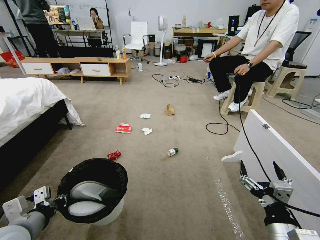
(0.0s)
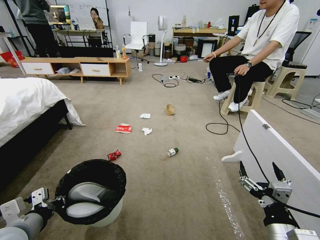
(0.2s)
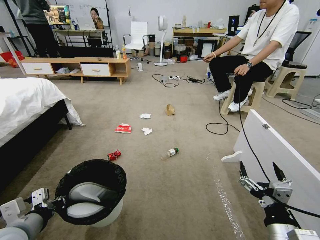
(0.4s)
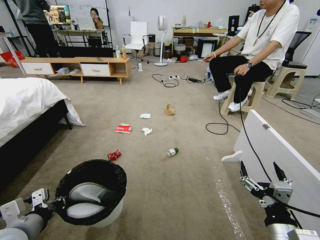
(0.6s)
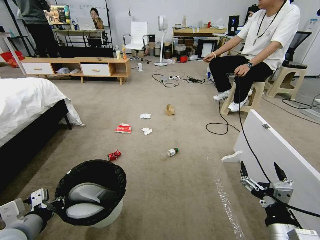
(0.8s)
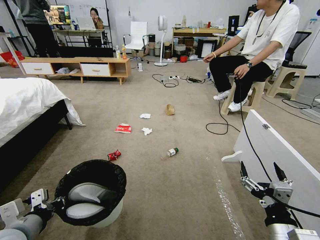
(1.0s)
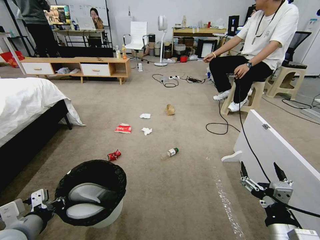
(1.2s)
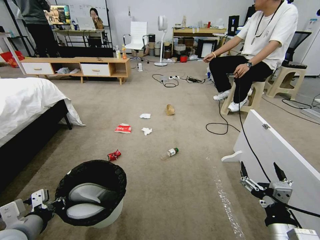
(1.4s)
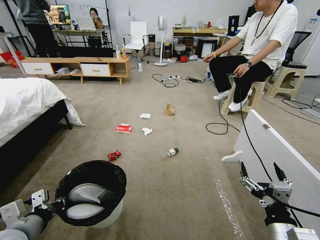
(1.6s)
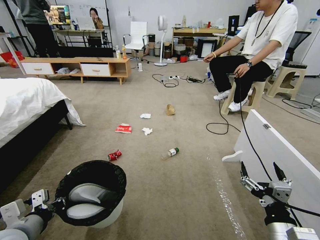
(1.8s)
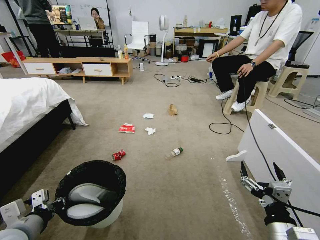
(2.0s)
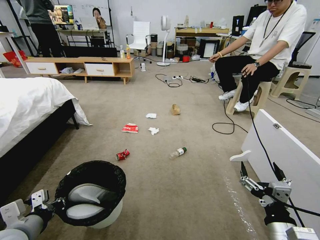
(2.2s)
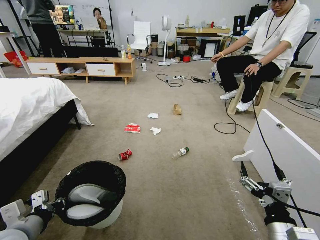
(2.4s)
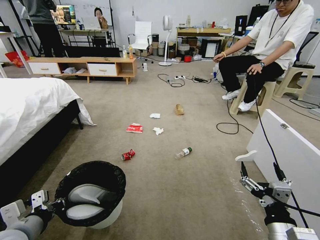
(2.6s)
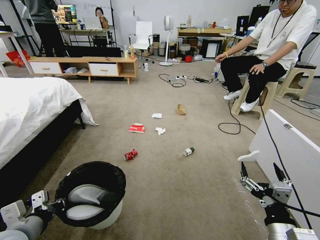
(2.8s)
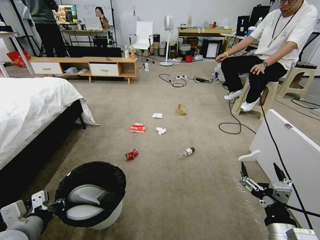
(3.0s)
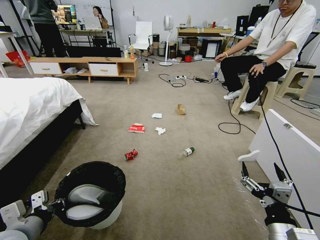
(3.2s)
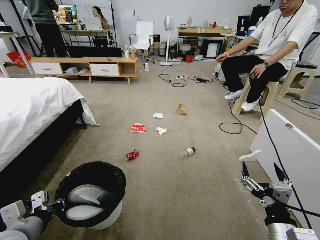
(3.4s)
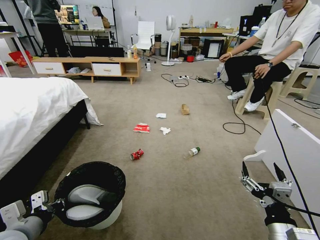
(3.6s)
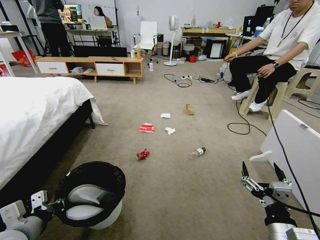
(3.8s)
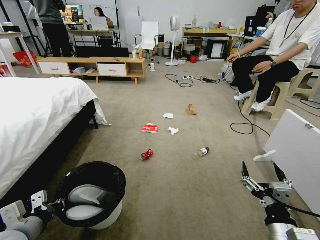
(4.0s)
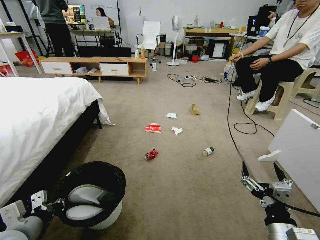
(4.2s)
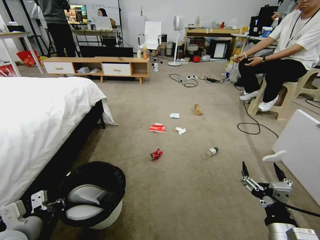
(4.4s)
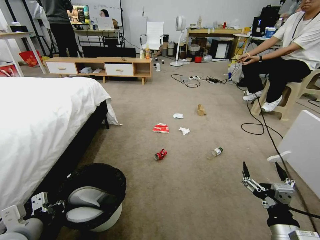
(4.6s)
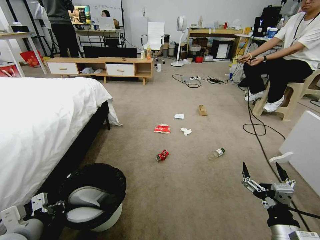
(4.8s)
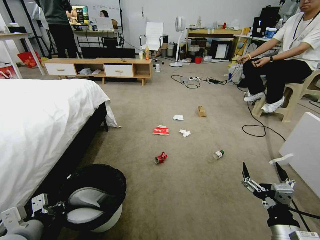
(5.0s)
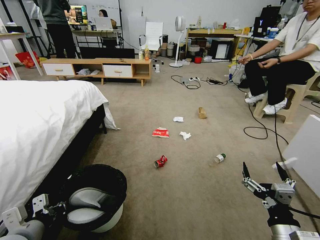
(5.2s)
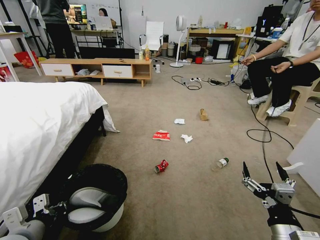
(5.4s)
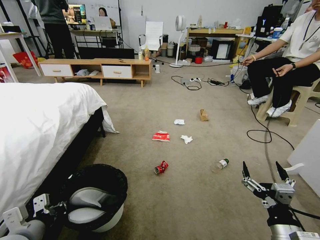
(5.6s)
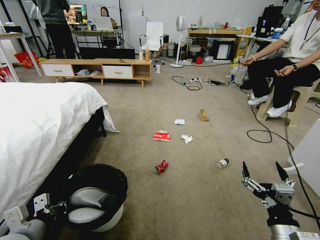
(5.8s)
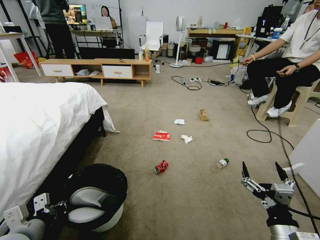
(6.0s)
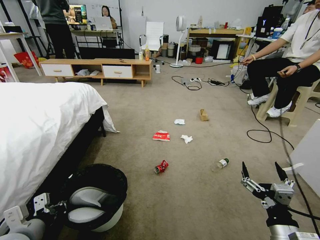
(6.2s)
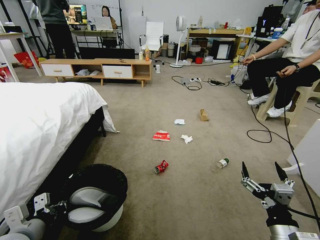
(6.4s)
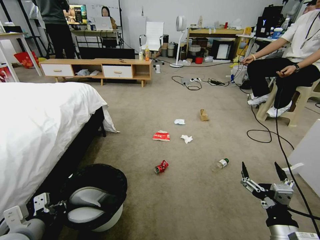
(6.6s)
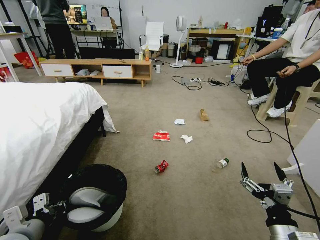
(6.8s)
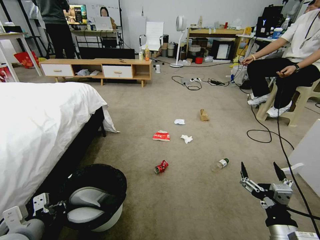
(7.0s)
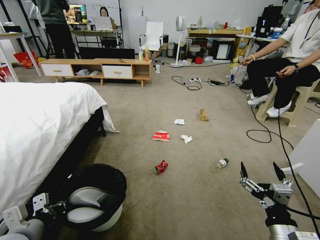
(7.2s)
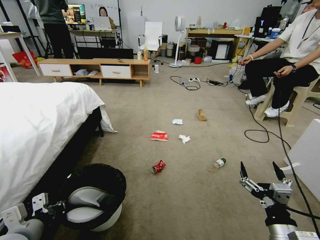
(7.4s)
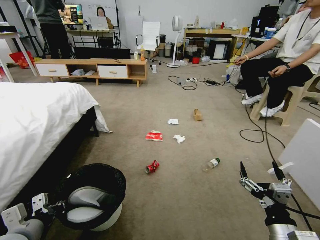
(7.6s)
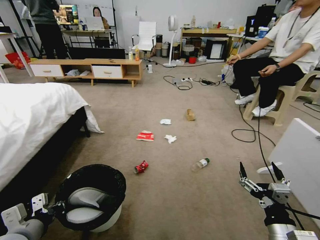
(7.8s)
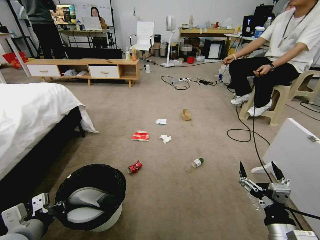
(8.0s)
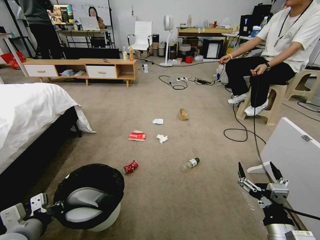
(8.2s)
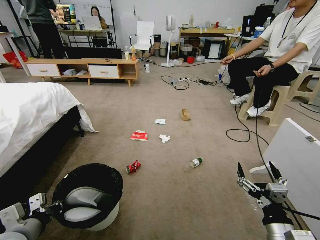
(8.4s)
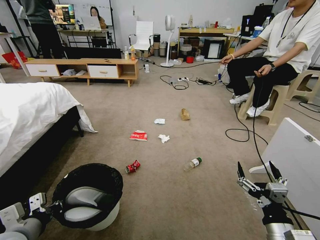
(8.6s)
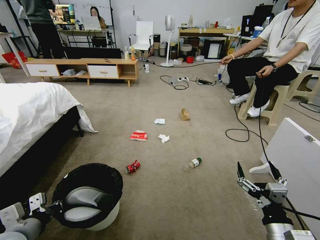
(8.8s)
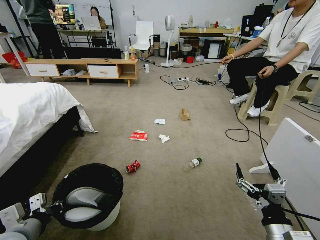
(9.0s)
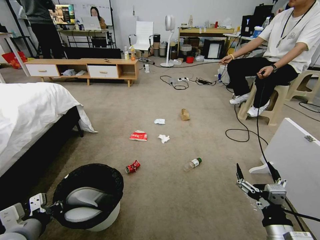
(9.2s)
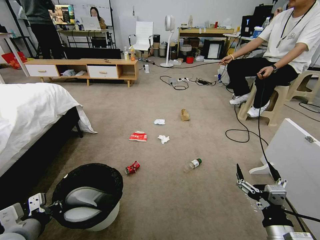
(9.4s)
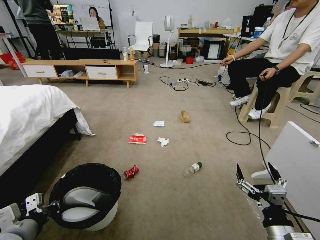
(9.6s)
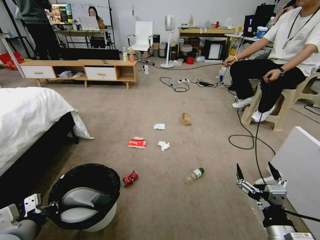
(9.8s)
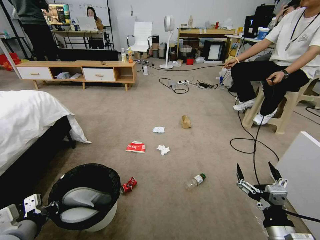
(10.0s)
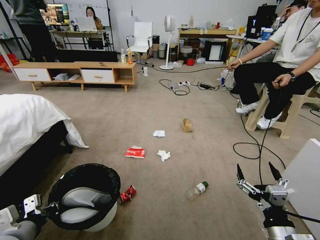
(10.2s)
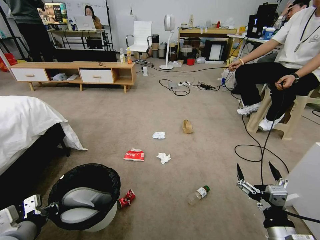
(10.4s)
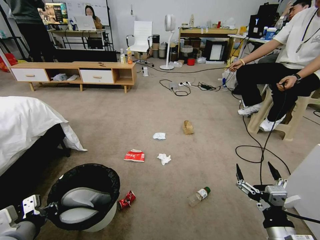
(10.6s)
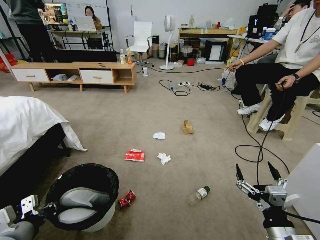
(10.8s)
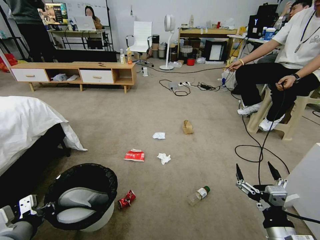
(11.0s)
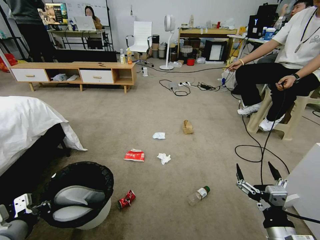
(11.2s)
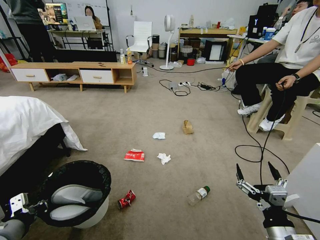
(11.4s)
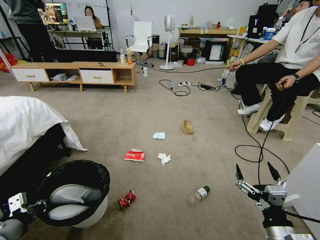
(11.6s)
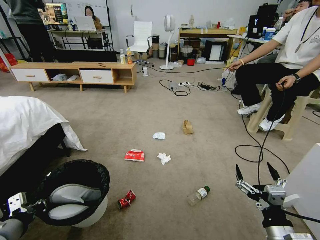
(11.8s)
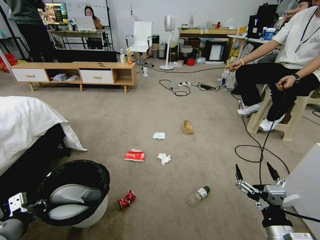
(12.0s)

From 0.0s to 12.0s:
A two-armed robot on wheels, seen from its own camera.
Task of the whole recording: Pick up the trash bin and place the garbage on the floor into it.
From 10.4s to 12.0s: The grippers move only a little.

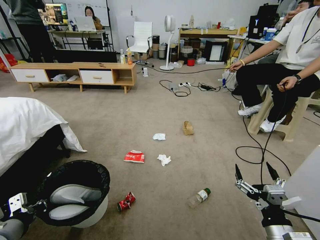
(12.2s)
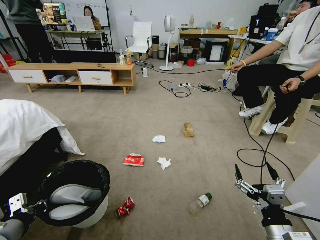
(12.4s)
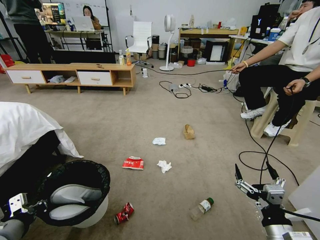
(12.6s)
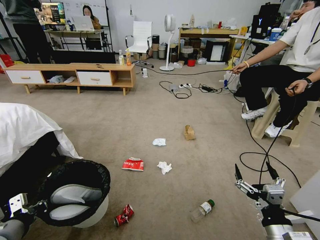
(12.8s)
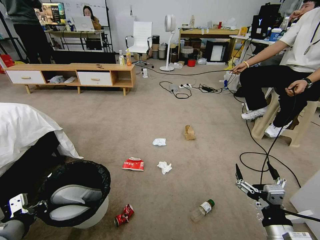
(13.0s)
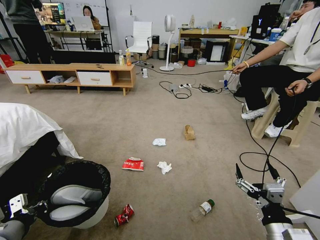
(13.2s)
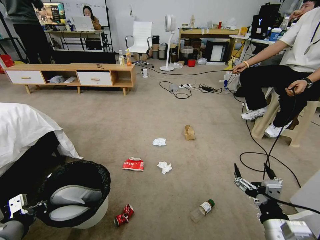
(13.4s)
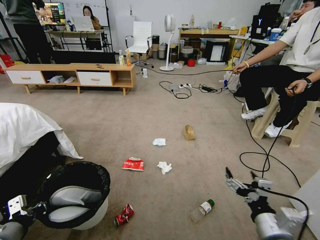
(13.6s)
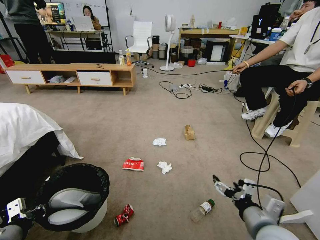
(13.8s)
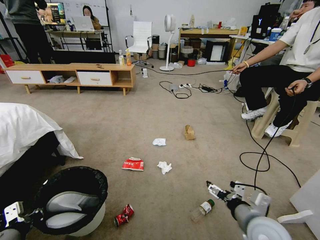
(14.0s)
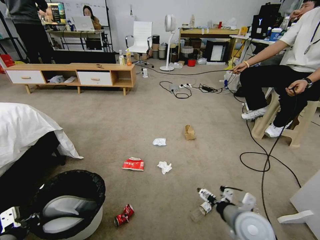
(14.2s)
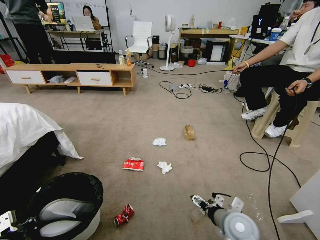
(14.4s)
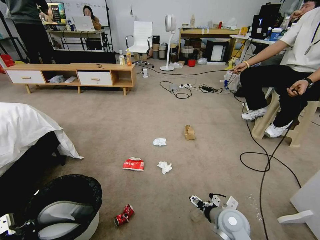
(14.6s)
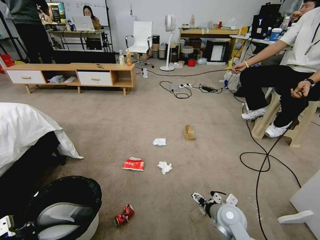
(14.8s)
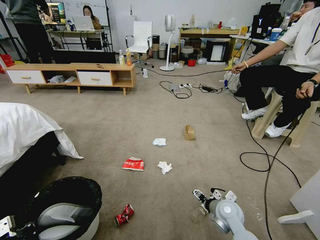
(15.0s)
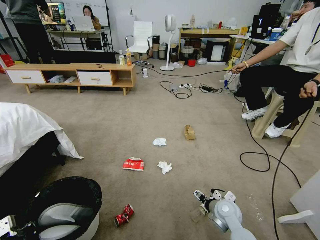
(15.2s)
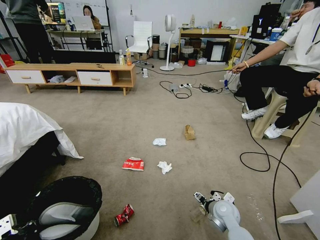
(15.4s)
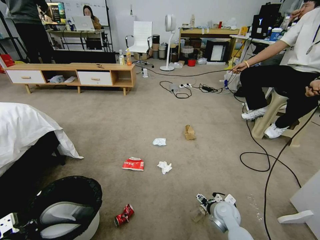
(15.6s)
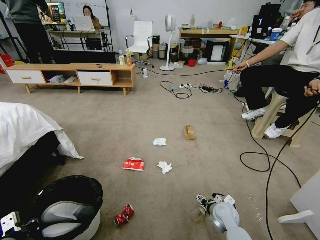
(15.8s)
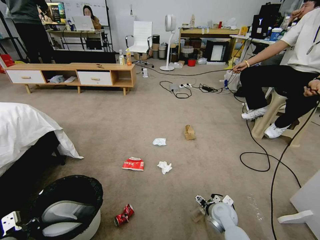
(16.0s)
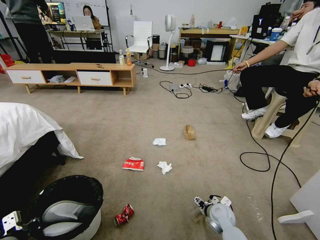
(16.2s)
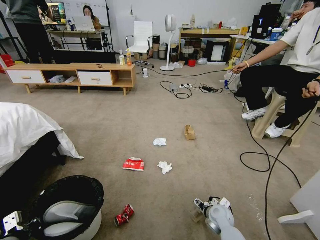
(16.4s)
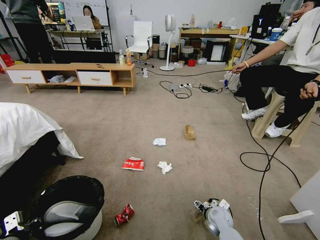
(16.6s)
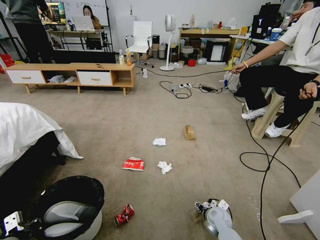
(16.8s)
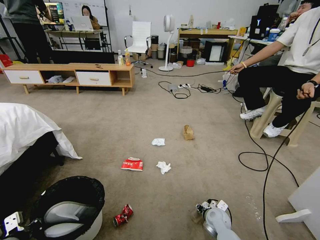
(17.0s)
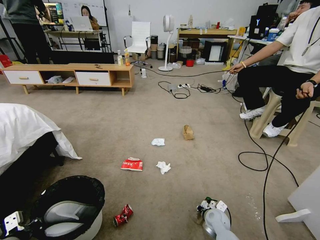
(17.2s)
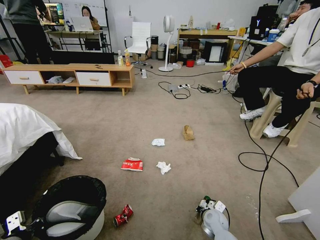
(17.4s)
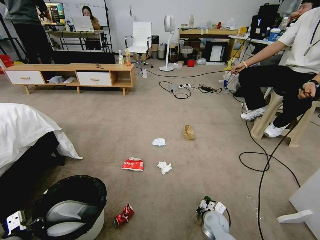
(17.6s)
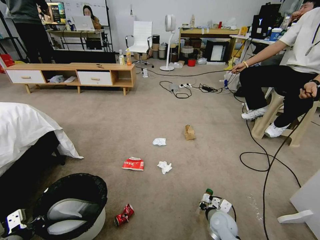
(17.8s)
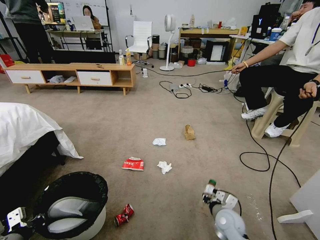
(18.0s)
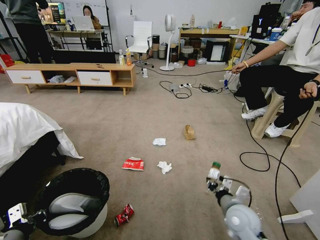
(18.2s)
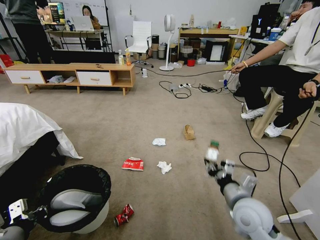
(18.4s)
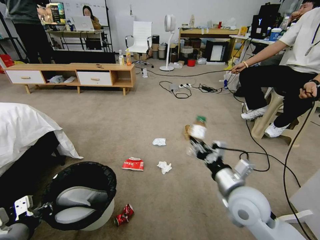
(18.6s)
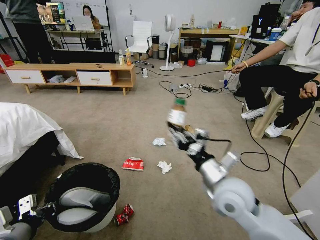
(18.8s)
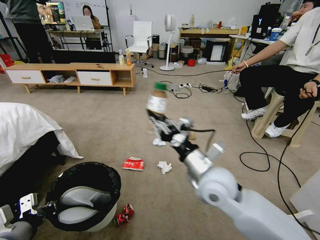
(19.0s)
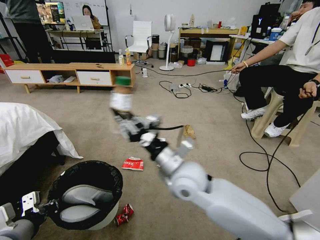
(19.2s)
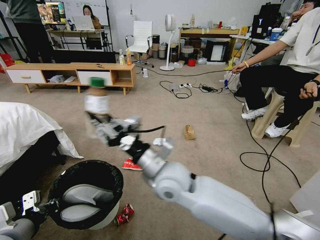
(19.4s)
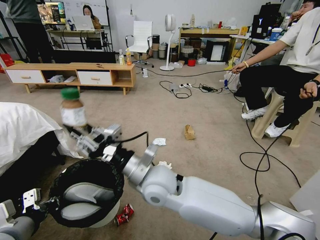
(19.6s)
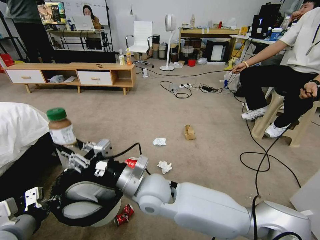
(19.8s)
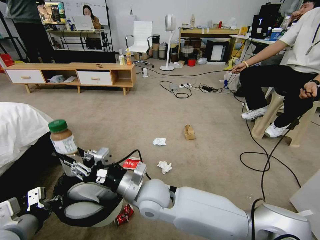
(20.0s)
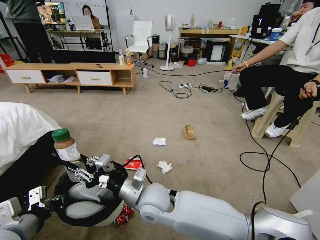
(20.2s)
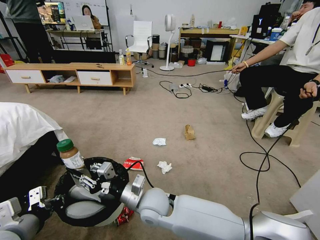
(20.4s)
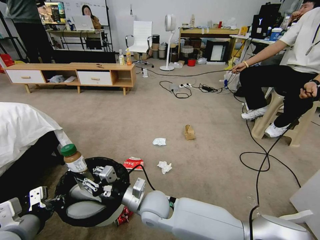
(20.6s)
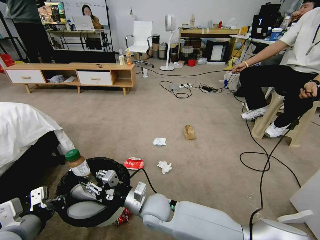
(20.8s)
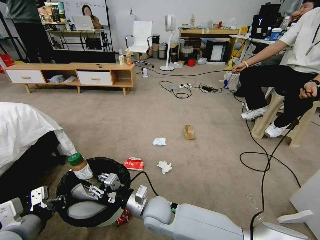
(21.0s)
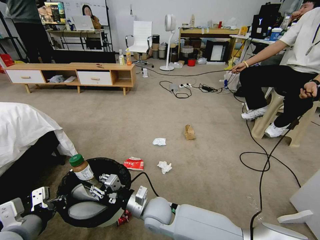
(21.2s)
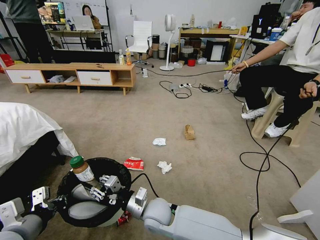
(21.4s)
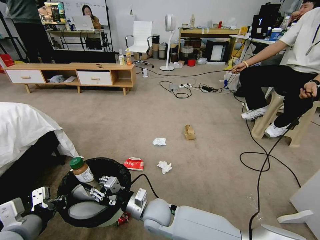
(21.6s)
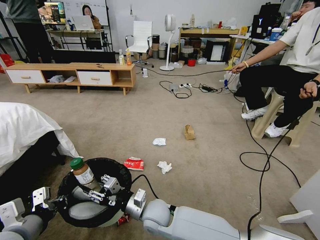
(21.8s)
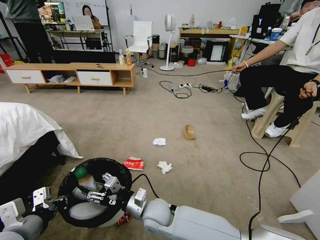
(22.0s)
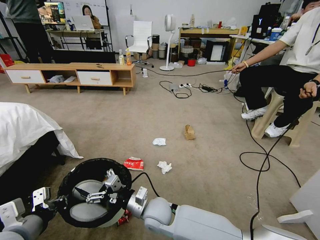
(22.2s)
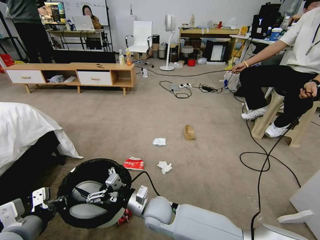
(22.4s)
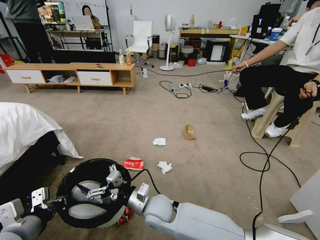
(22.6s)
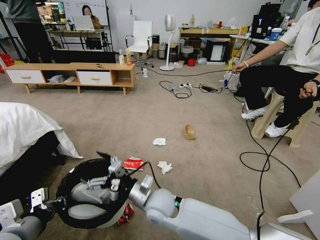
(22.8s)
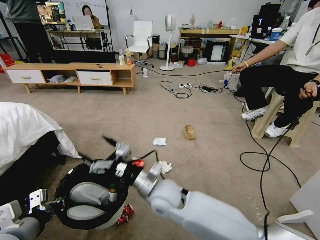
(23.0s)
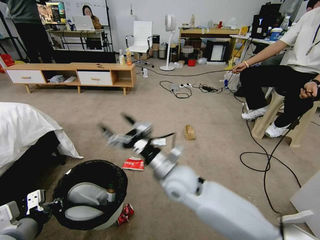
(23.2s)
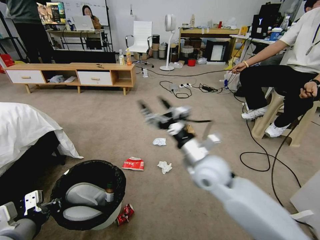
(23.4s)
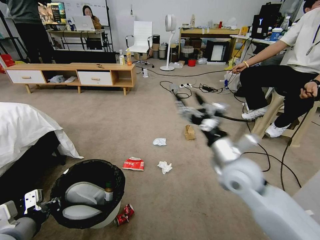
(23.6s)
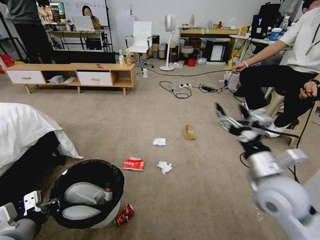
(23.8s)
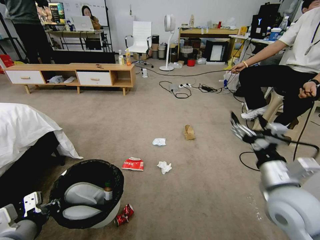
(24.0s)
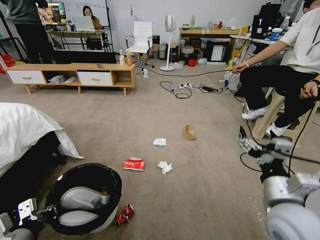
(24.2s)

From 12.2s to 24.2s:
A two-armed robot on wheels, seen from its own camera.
Task of the whole recording: Pick up the trash bin and place the garbage on the floor into it.
From 12.2s to 13.8s: The right gripper moves forward, roughly 5 cm.
From 13.8s to 15.2s: The right gripper is displaced downward and forward by roughly 20 cm.
From 15.2s to 16.6s: The right gripper heads downward, covering roughly 10 cm.
From 16.6s to 18.2s: The right gripper is displaced upward and backward by roughly 15 cm, and closes up.
From 18.2s to 19.8s: The right gripper travels to the left and upward by approximately 30 cm. Meanwhile the left gripper ends up roughly 5 cm from where it was.
From 19.8s to 21.2s: The right gripper goes some 15 cm downward.
From 21.2s to 22.6s: The right gripper opens its fingers.
From 22.6s to 24.2s: The right gripper is displaced to the right and upward by some 35 cm.
